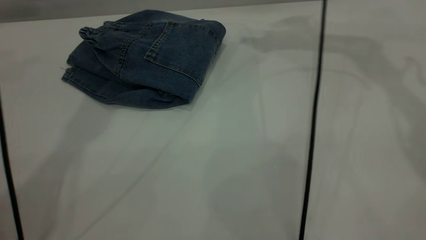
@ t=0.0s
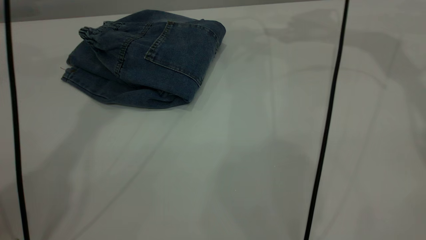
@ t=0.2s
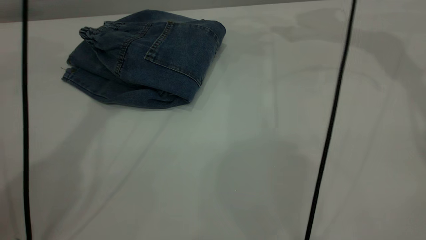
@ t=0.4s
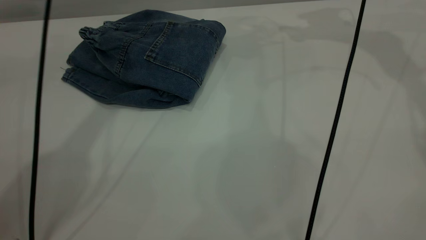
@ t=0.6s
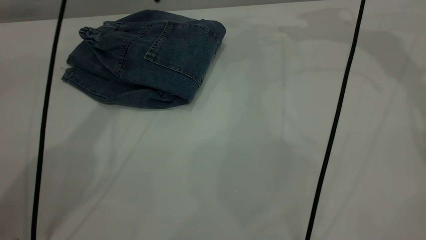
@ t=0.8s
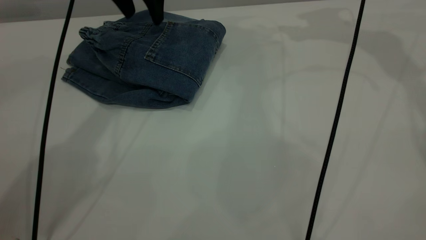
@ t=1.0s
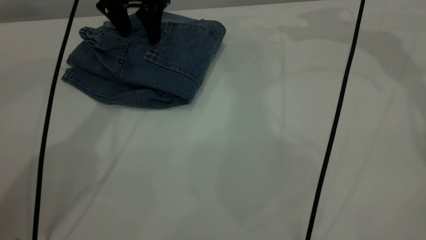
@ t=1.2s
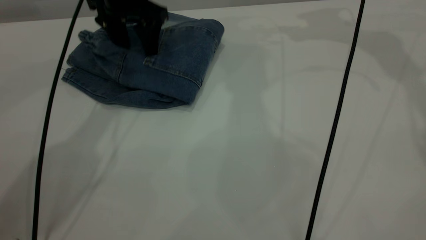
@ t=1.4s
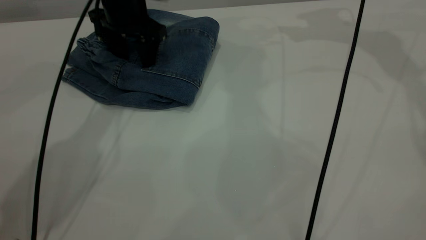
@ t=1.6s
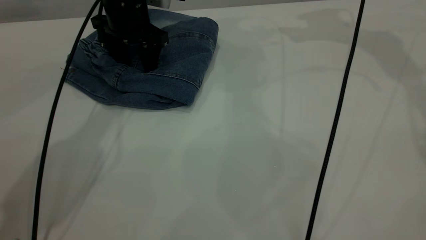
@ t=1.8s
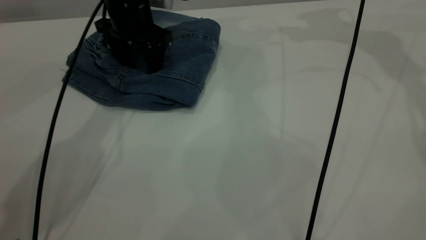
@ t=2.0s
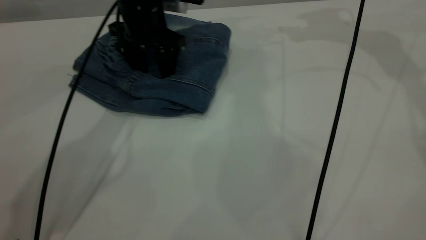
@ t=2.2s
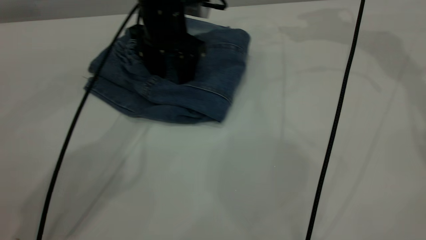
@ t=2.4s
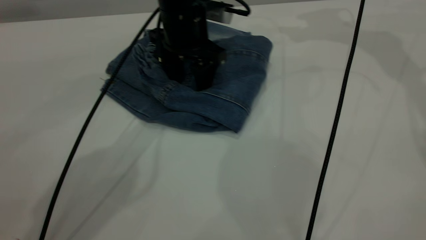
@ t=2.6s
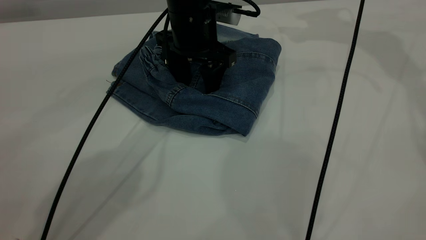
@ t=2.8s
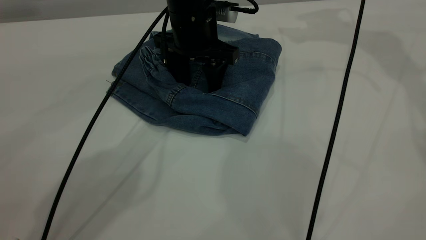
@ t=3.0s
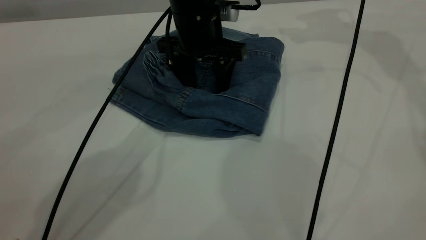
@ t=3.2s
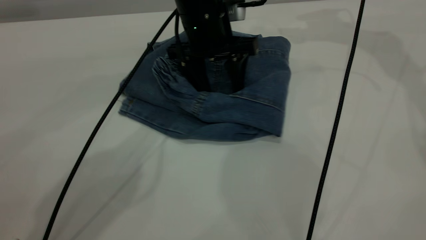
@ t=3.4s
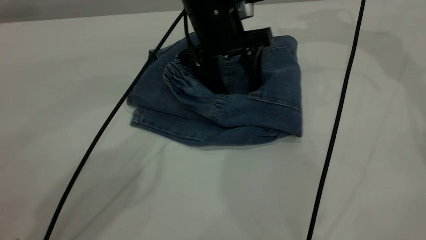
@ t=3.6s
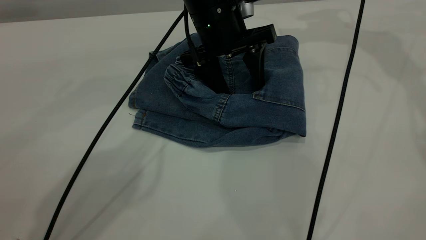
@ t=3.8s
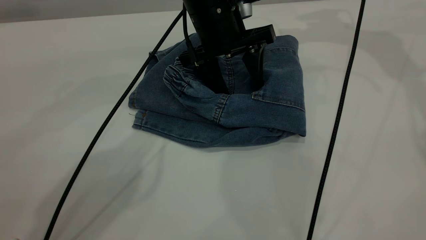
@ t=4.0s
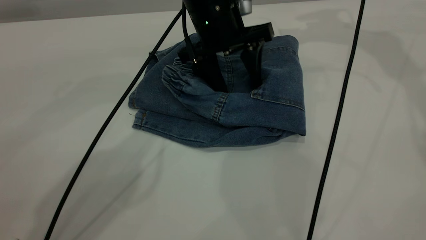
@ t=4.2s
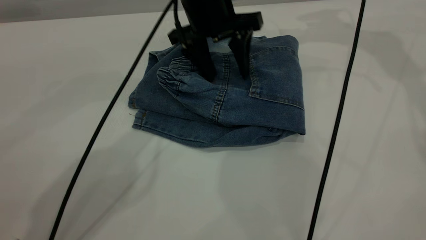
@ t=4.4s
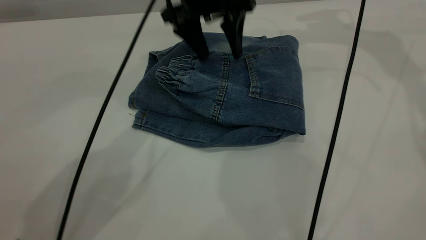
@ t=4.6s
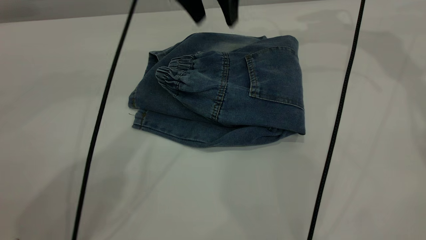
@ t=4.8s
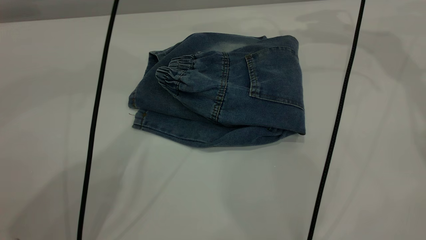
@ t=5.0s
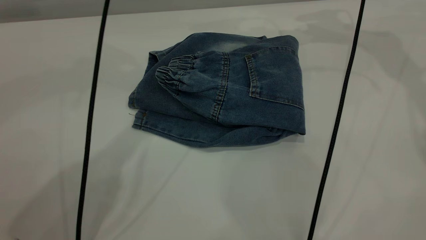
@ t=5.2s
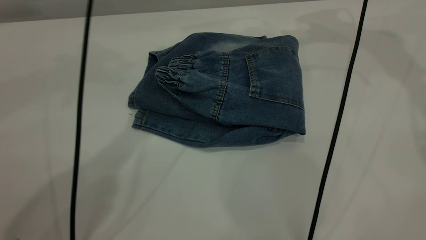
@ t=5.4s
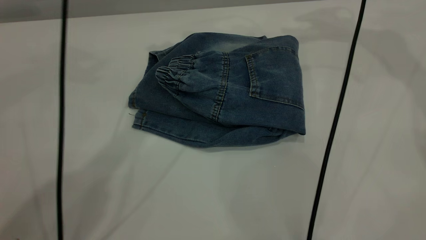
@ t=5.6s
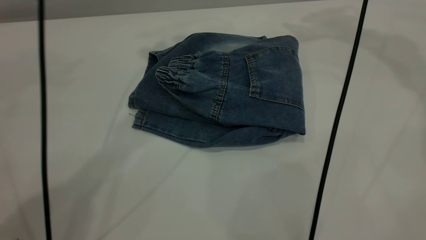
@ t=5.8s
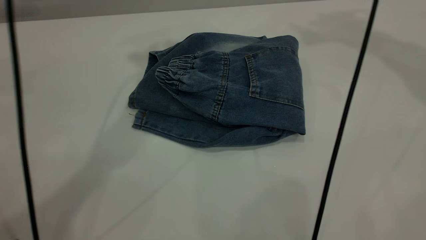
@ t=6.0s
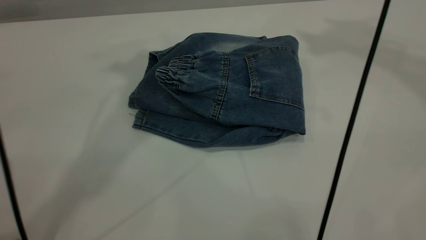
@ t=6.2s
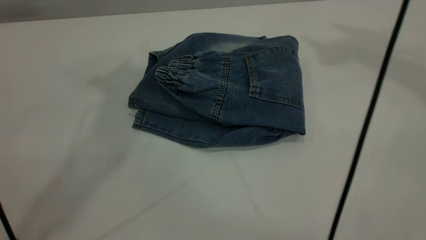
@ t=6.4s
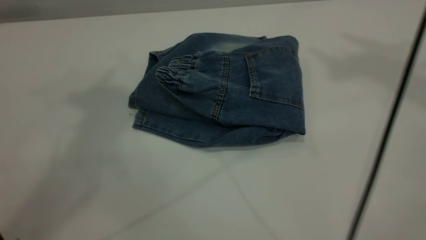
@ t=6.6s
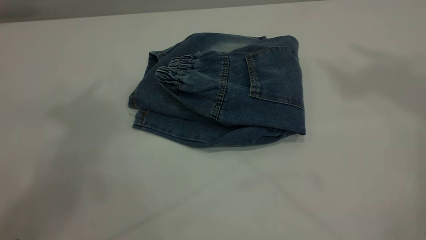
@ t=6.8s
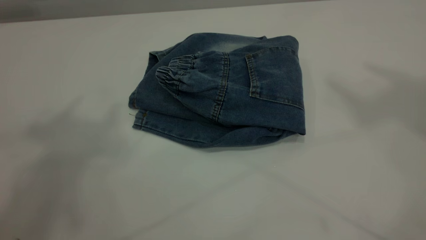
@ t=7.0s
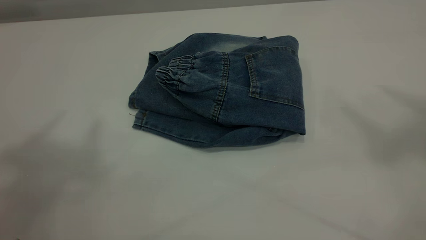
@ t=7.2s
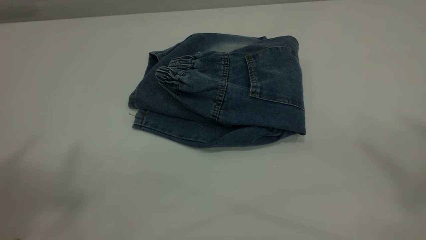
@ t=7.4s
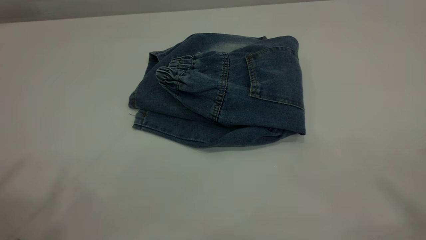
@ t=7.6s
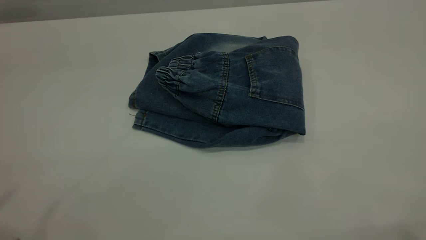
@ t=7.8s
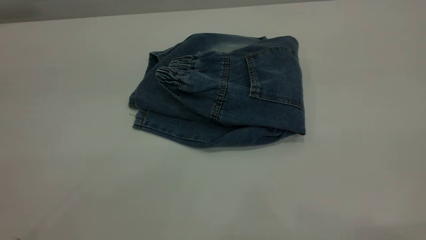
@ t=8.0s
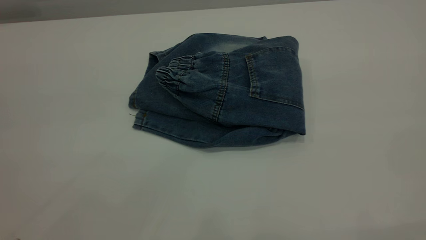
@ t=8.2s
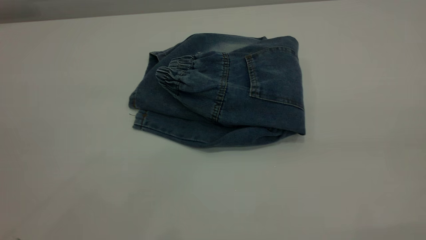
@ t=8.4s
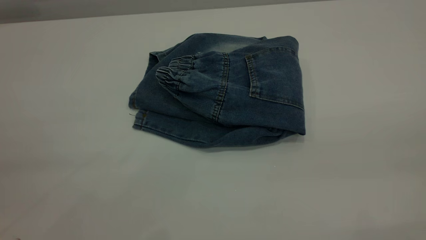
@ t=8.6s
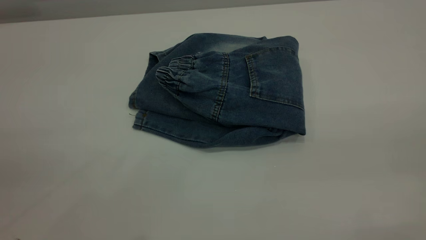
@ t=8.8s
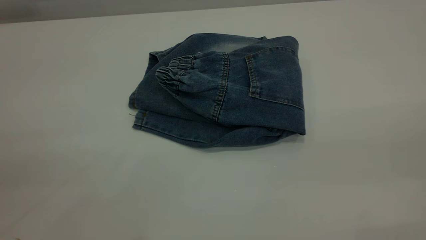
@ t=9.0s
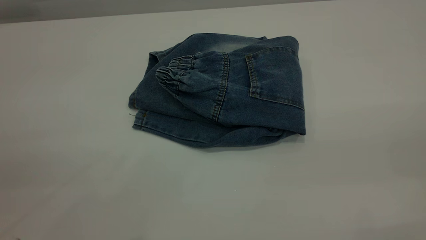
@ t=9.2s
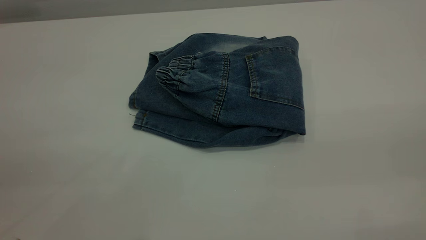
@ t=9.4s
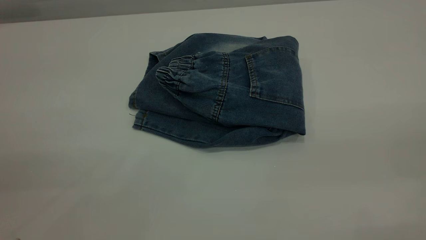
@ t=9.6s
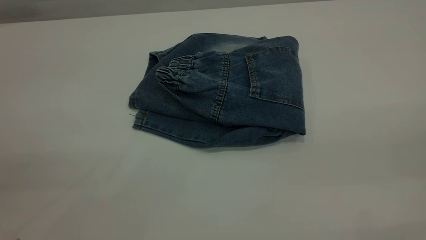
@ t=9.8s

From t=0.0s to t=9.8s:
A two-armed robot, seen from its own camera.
From t=0.0s to t=1.4s: The left gripper is displaced downward by approximately 25 cm.
From t=1.4s to t=2.8s: The left gripper is displaced to the right and backward by approximately 10 cm.
From t=4.2s to t=5.6s: The left gripper is displaced upward by some 20 cm. Meanwhile the right gripper is displaced upward by roughly 10 cm.
From t=5.6s to t=7.0s: The left gripper is displaced upward, backward and to the left by approximately 35 cm. The right gripper travels upward and backward by about 35 cm.
From t=7.0s to t=8.4s: The left gripper moves downward, backward and to the left, roughly 30 cm.

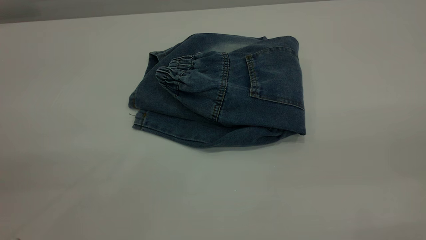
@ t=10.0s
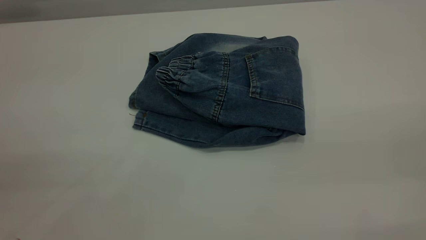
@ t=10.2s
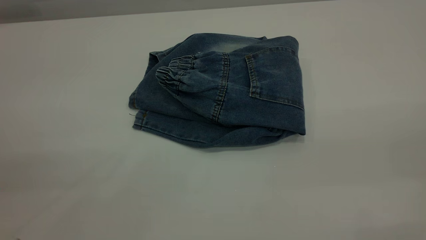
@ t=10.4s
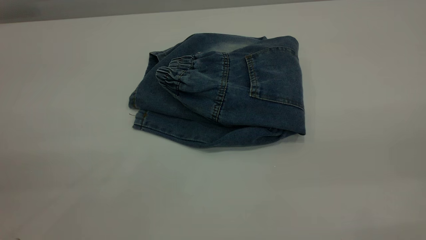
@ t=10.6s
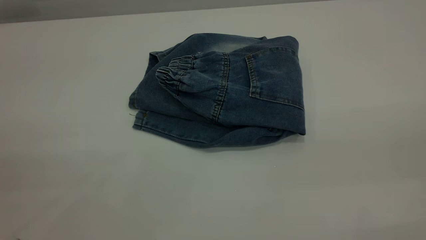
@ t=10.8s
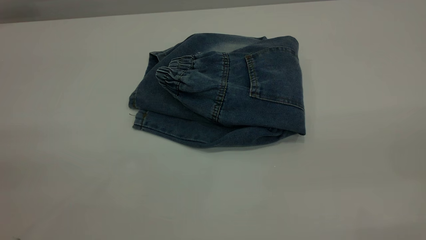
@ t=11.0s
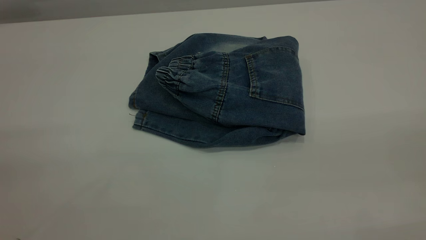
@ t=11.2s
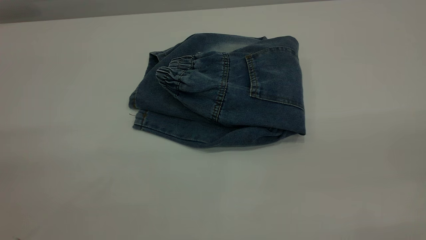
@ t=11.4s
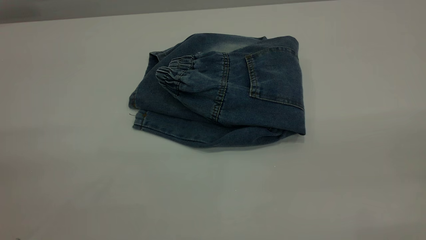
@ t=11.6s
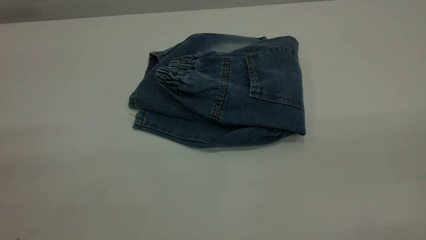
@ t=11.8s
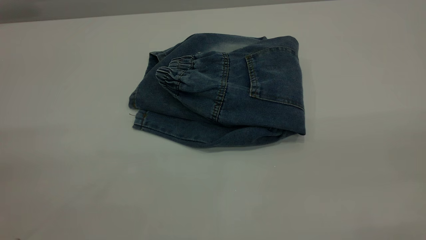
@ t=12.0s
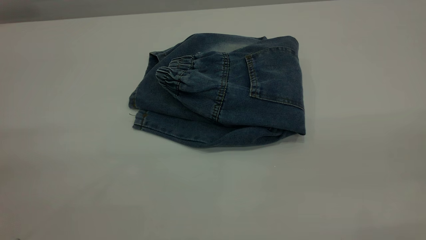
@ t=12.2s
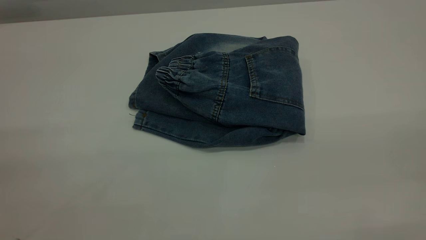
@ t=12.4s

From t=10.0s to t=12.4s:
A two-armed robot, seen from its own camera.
From t=11.2s to t=12.4s: Both grippers stay about where they are.
